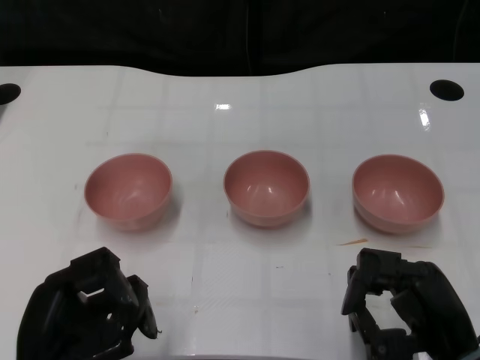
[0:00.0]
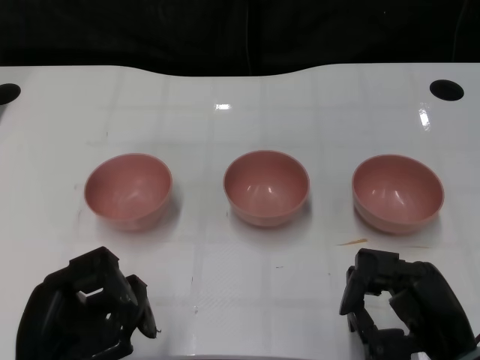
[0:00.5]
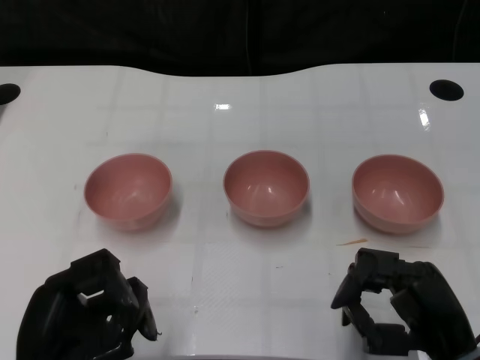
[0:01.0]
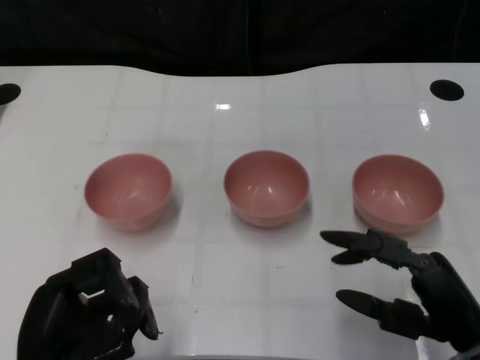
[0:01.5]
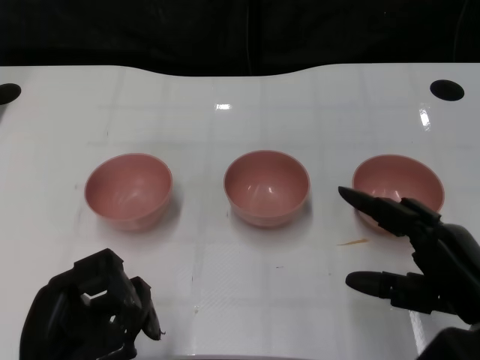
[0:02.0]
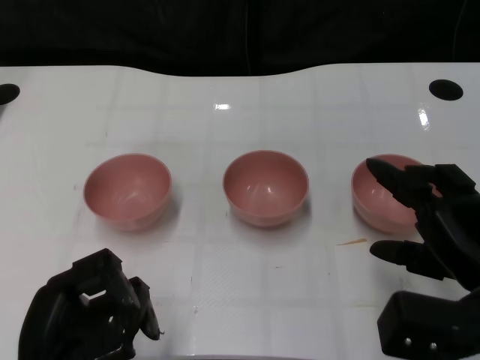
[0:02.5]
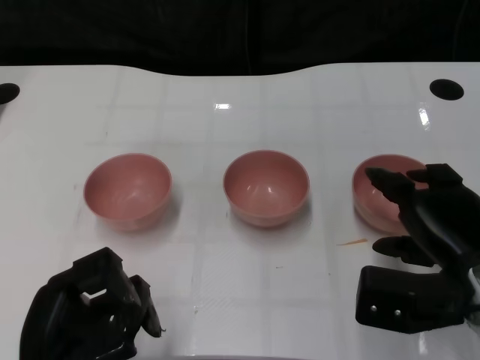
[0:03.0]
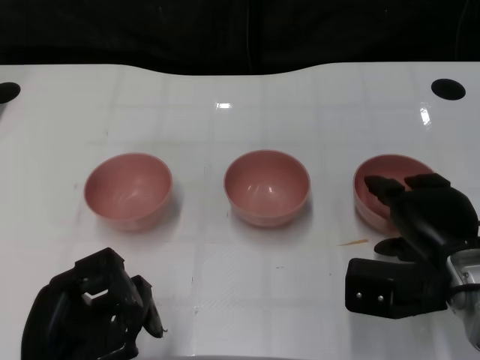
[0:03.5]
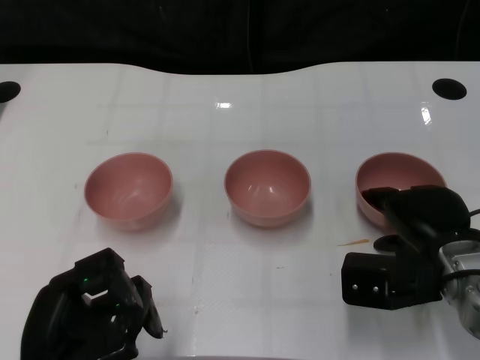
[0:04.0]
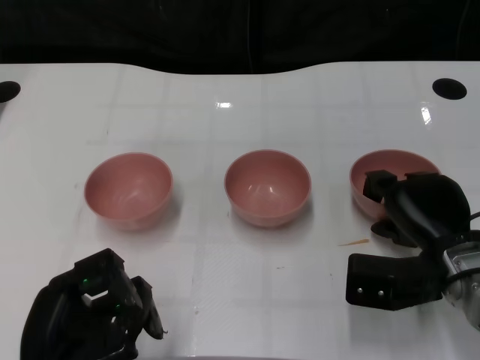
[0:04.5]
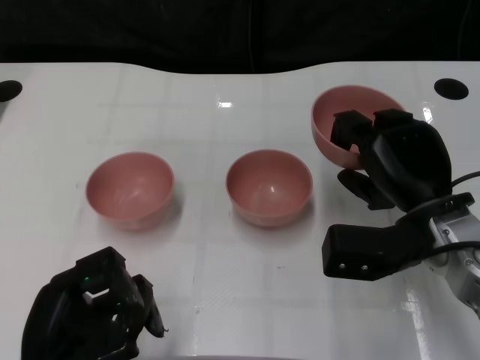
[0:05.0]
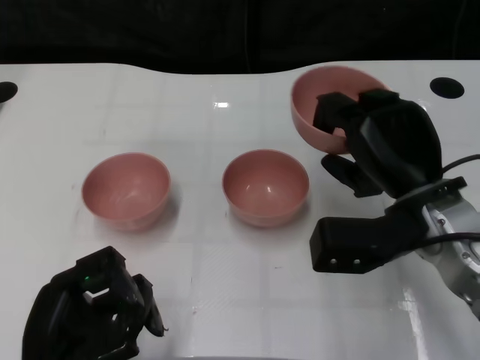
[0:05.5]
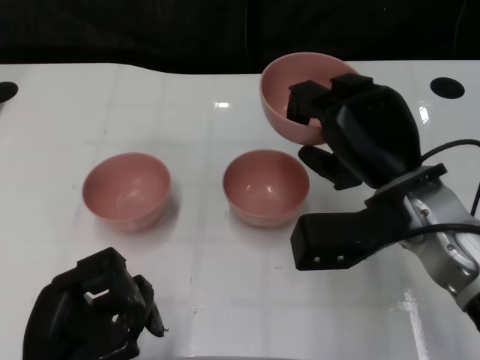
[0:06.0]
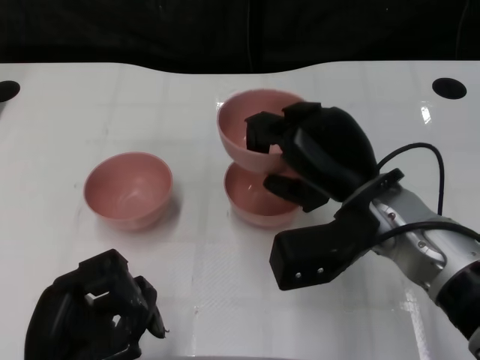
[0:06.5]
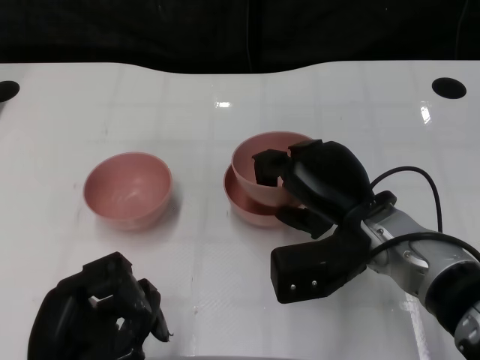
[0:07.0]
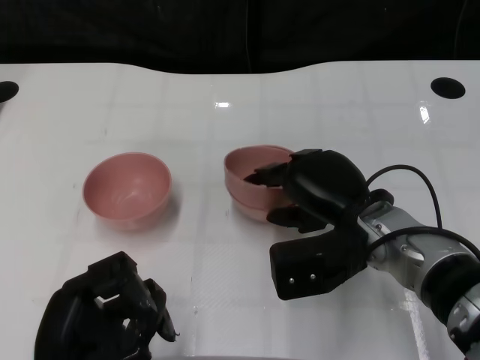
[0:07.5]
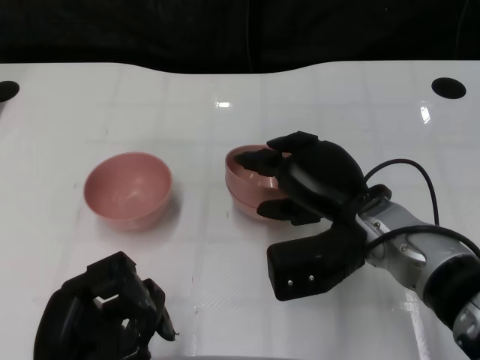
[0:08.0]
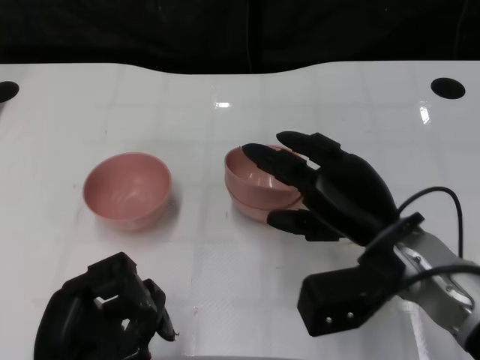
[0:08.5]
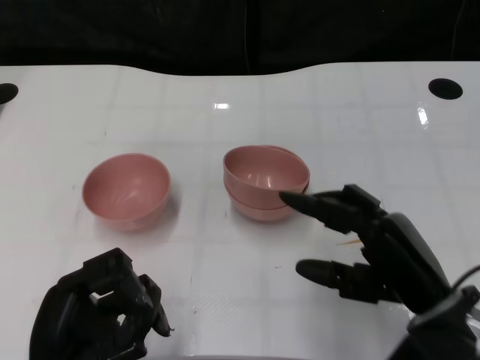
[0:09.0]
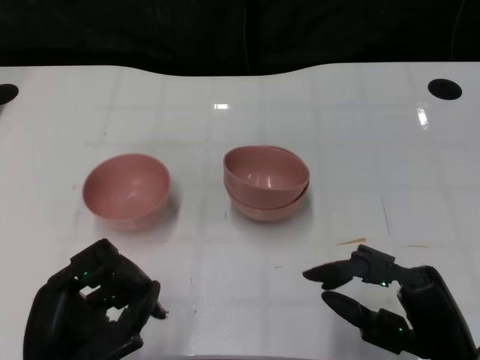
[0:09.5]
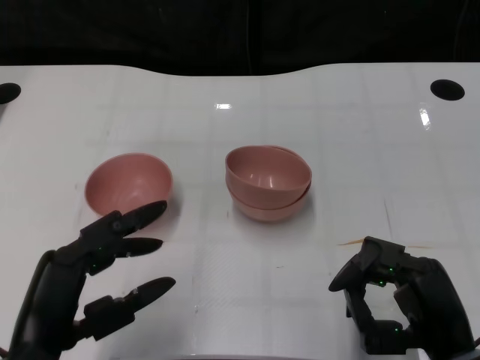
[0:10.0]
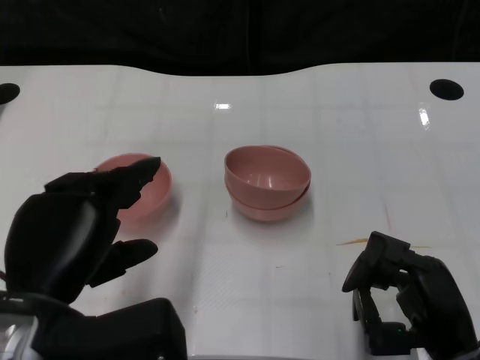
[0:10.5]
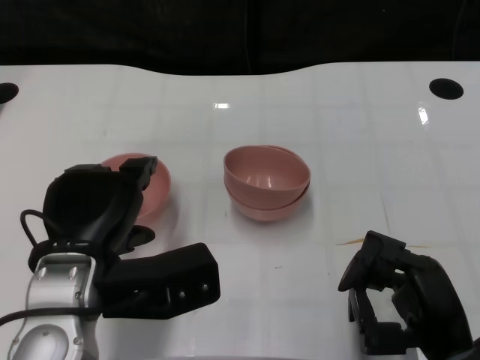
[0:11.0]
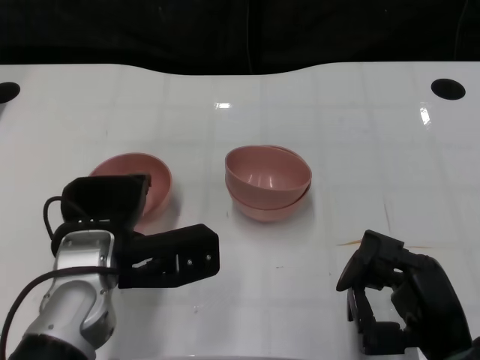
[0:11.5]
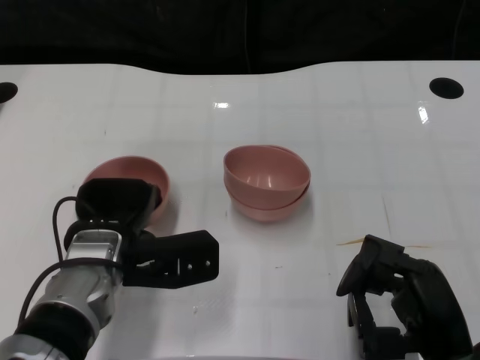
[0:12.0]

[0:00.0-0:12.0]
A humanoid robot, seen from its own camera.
Task of the whole recording: Pick up the bowl on one side of the table and place it on top of the middle bowl, then pick up the bowl on the other side of the table and place it on top of the middle bowls.
Step, 0:01.0 to 0:04.5: Grasp the bowl on the right with the right gripper.
Step, 0:05.0 to 0:08.5: Place the bowl on the right onto the bowl in the middle with right gripper.
0:02.0 to 0:04.0: The right hand shifts about 10 cm forward.
0:04.0 to 0:06.0: The right hand shifts approximately 10 cm upward and to the left.
0:06.0 to 0:08.0: The right hand shifts by approximately 5 cm.
0:08.0 to 0:10.0: The right hand heads backward and to the right, covering about 15 cm.
0:10.0 to 0:12.0: The left hand moves forward, about 15 cm.

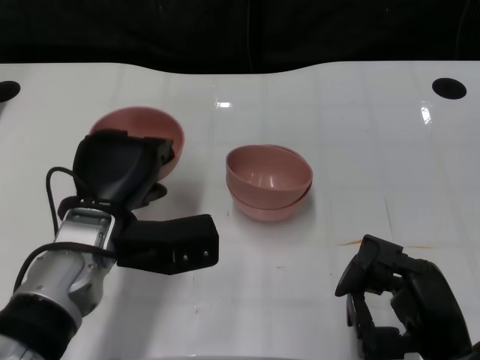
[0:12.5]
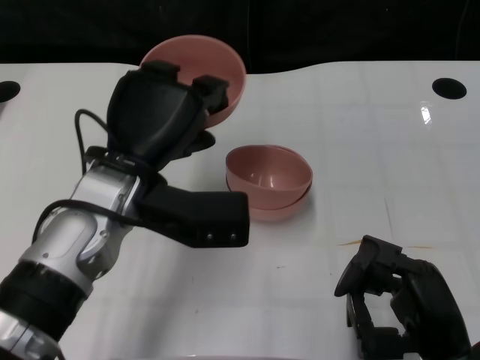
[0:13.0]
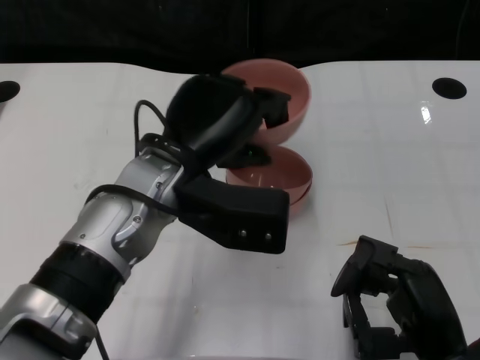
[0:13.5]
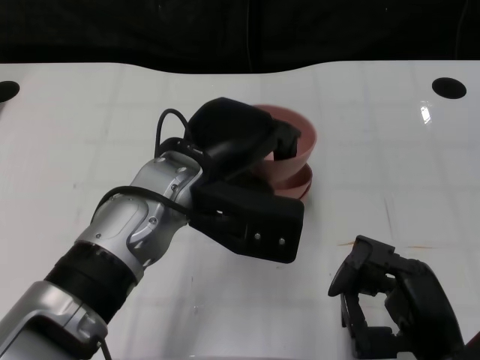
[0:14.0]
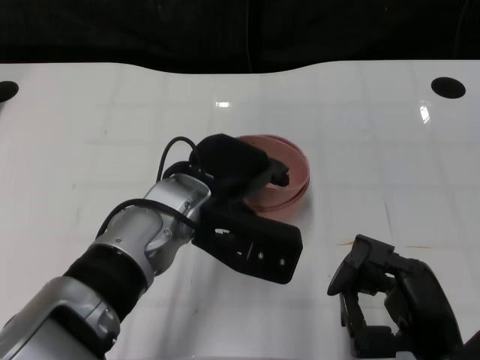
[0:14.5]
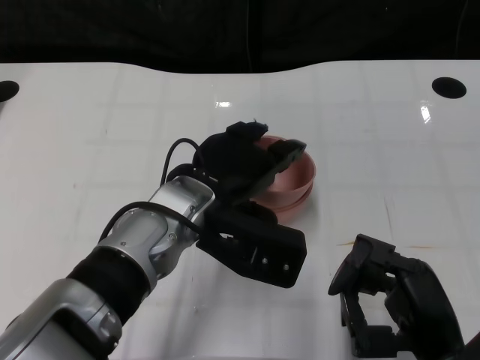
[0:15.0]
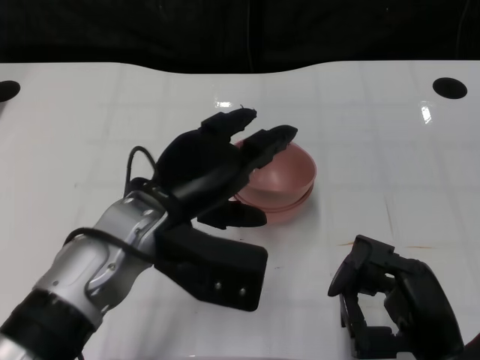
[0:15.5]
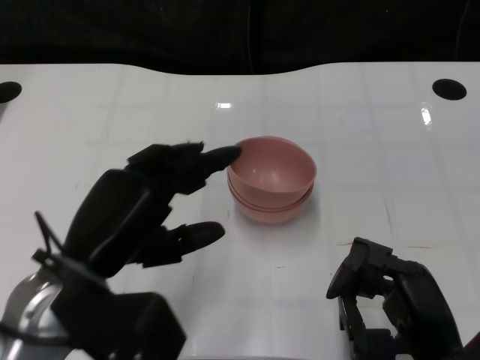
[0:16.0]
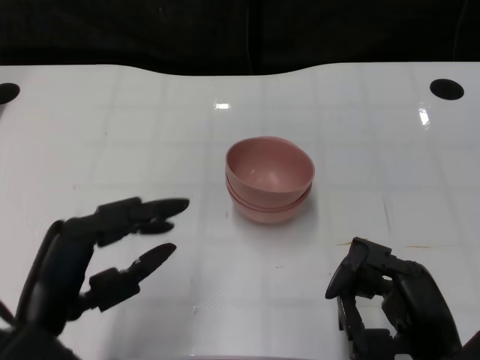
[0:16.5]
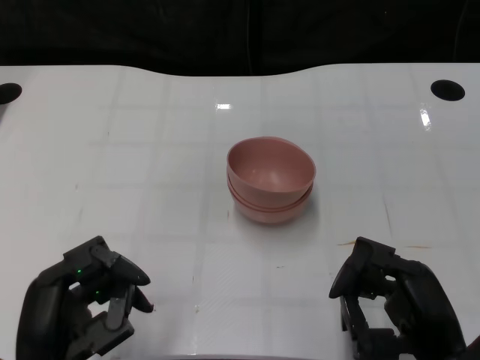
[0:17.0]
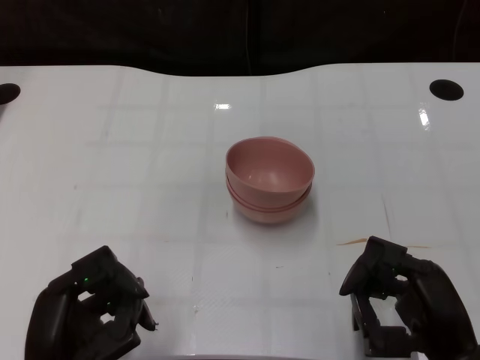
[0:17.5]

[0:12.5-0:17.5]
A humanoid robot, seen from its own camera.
Task of the whole recording: Pick up the bowl on one side of the table and place it on top of the middle bowl, then pick up the bowl on the other side of the table and place it on top of the middle bowls.
Step, 0:12.5 to 0:15.5: Place the bowl on the left onto the bowl in the middle with left gripper.
0:12.5 to 0:15.0: The left hand is displaced to the right by approximately 10 cm.
0:15.0 to 0:17.5: The left hand is displaced backward, to the left and downward by approximately 20 cm.
